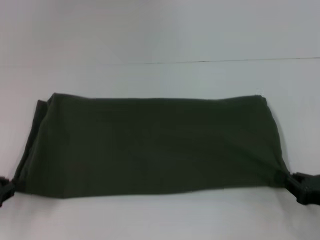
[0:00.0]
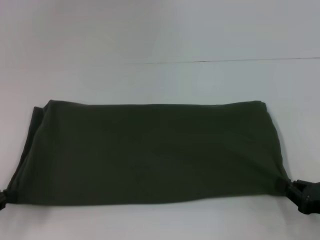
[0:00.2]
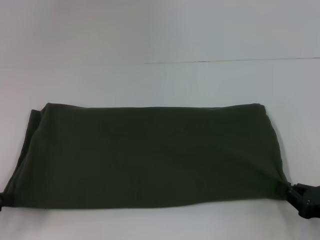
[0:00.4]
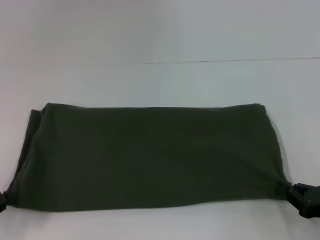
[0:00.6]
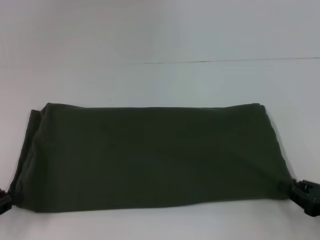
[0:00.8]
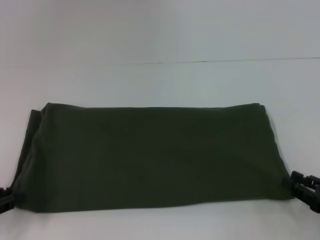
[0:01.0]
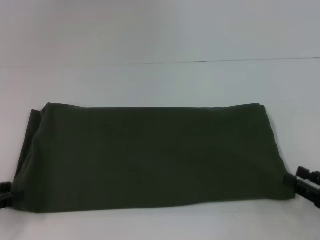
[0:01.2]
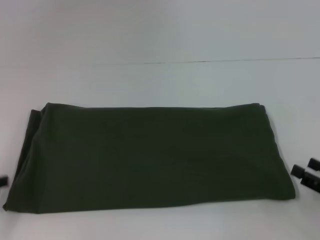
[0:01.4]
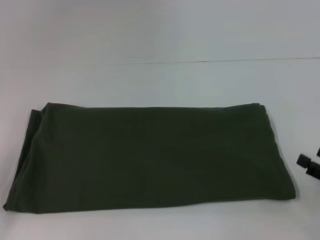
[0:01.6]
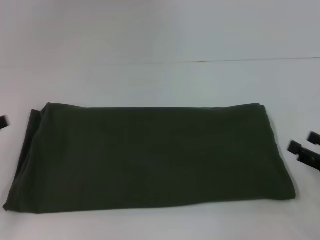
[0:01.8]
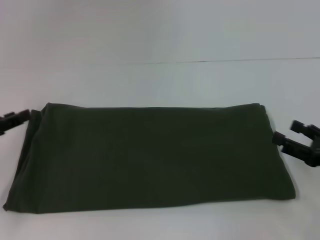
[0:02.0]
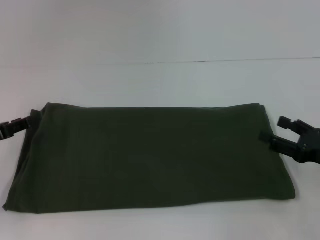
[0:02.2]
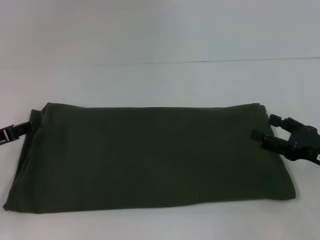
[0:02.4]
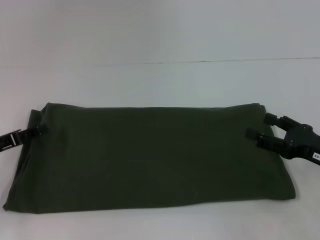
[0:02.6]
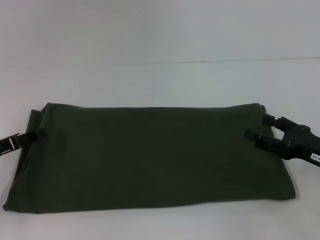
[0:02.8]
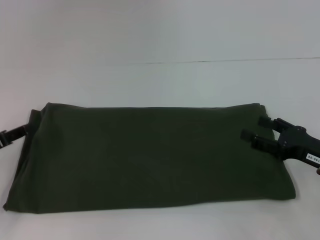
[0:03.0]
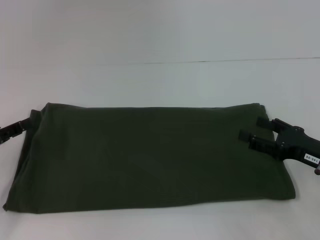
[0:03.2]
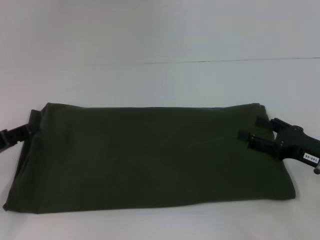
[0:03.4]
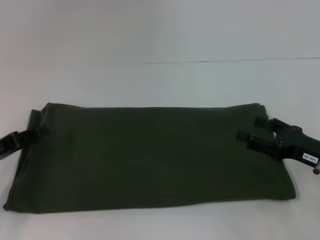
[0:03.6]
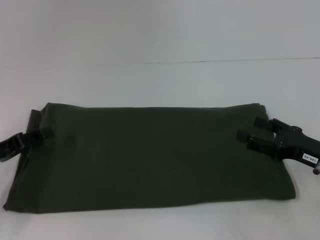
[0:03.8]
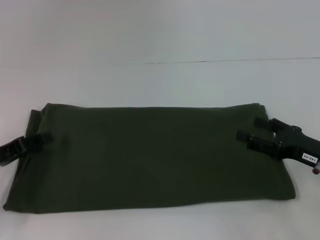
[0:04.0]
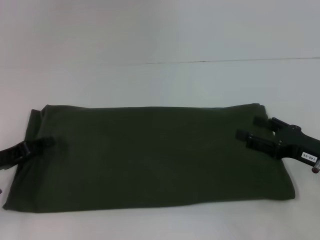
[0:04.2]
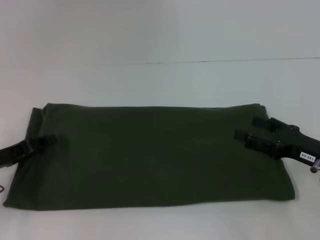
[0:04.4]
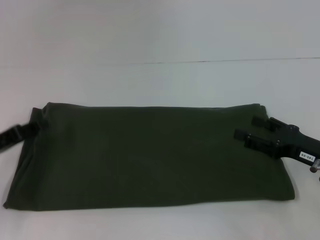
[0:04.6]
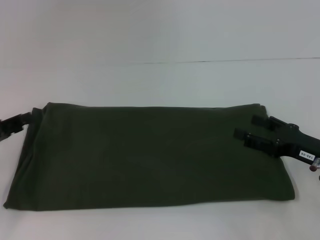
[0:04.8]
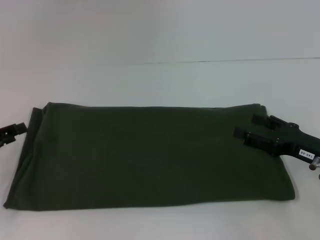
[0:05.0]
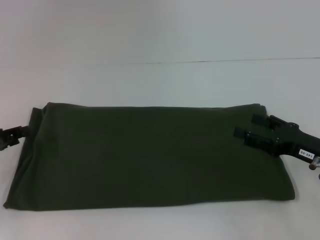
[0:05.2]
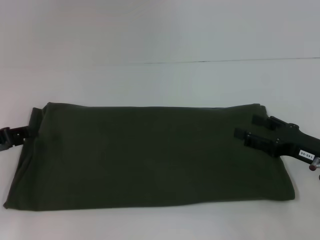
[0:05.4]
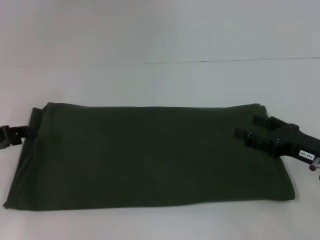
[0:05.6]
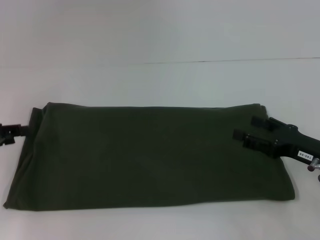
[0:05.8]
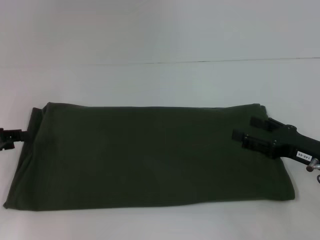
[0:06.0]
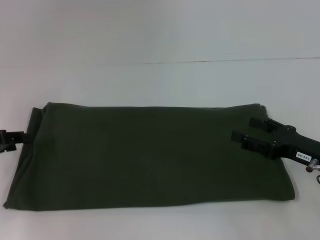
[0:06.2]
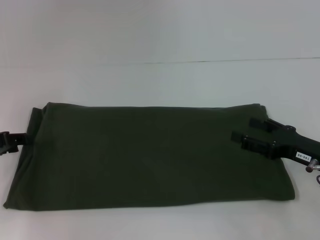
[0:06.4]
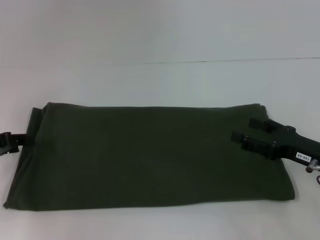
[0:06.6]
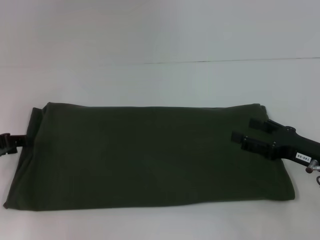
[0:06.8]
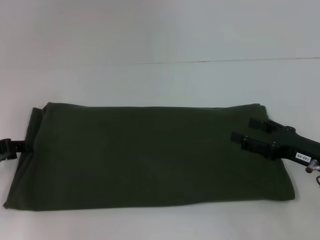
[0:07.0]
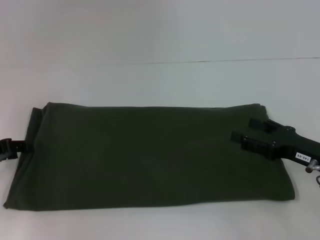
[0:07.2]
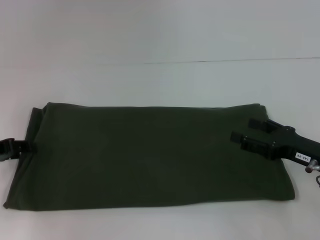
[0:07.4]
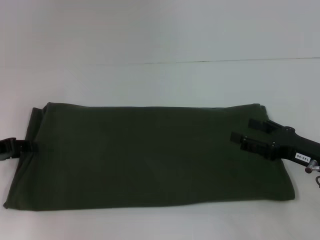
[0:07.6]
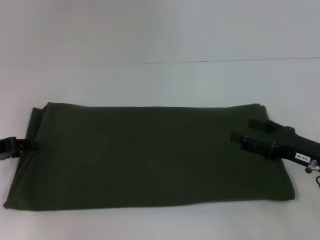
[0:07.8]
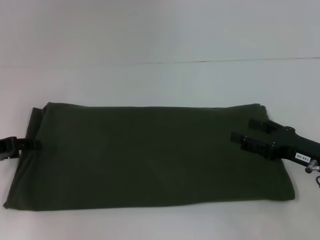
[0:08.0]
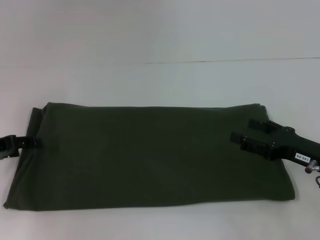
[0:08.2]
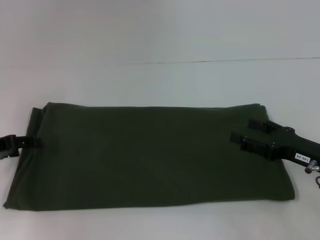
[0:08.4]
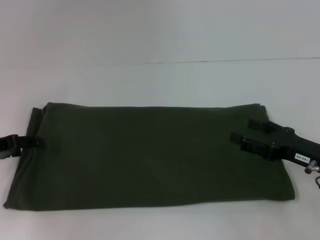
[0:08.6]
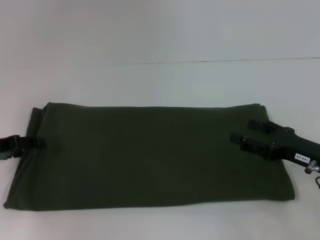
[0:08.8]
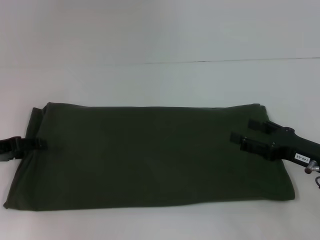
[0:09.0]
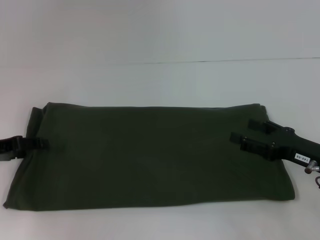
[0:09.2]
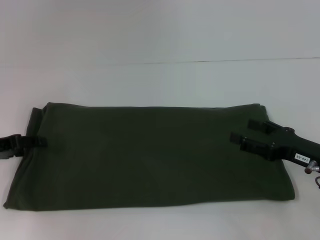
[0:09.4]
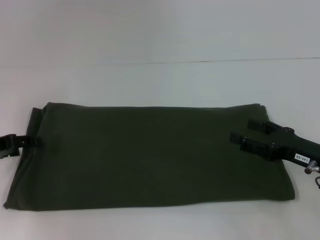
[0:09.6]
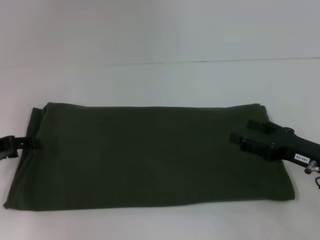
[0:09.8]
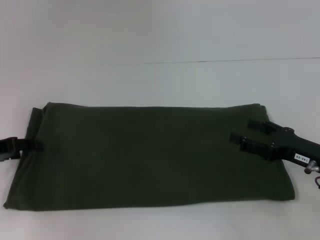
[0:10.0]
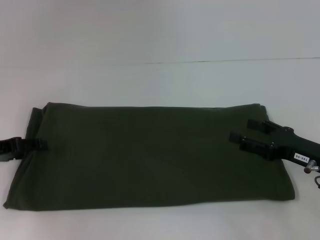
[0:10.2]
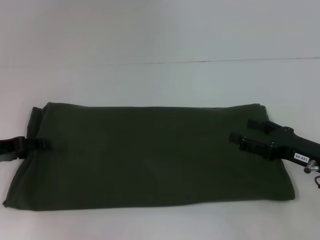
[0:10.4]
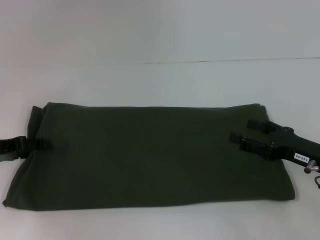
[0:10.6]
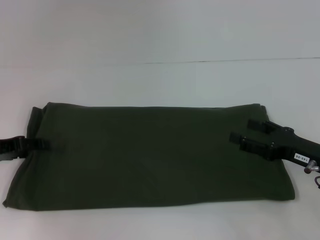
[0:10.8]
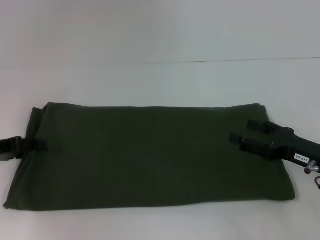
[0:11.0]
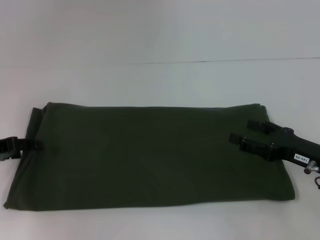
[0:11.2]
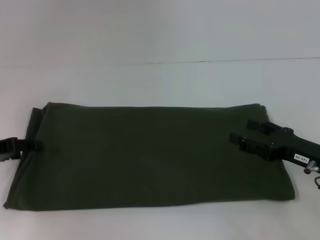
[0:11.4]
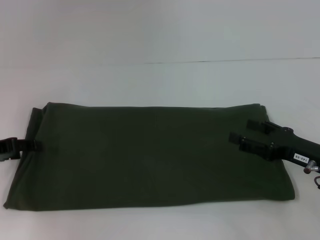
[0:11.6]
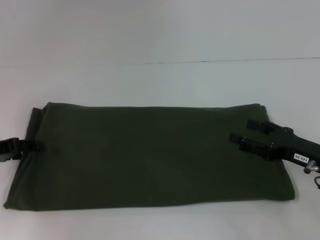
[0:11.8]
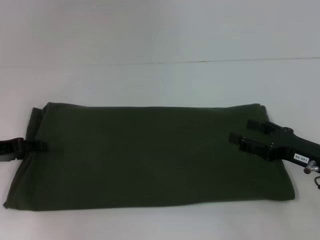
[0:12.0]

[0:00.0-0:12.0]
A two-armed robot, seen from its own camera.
0:00.0 to 0:01.6: The left gripper opens up. The right gripper opens up.
0:01.6 to 0:03.0: The right gripper heads forward and to the left, covering approximately 10 cm.
0:03.0 to 0:04.4: The grippers move only a little.
0:04.4 to 0:06.0: The left gripper heads upward, covering some 5 cm.
0:06.0 to 0:07.6: The grippers make only small movements.
0:07.6 to 0:12.0: Both grippers stay put.

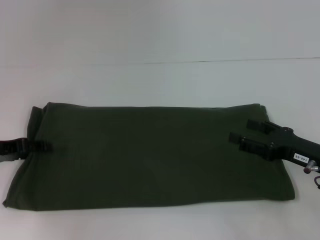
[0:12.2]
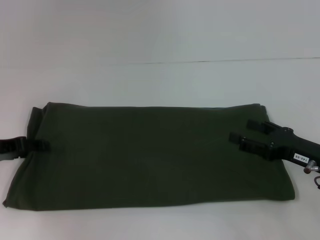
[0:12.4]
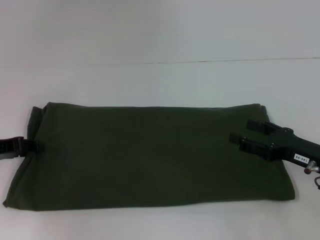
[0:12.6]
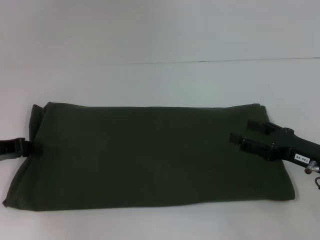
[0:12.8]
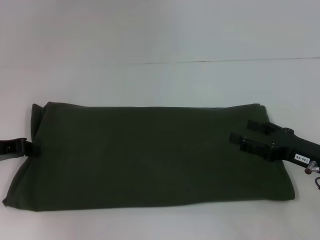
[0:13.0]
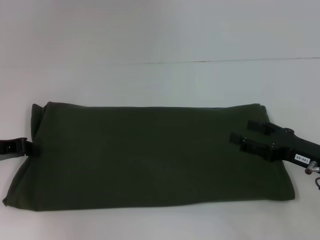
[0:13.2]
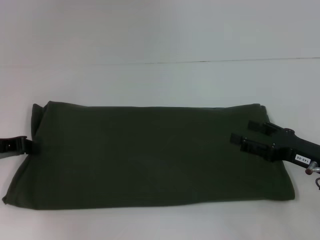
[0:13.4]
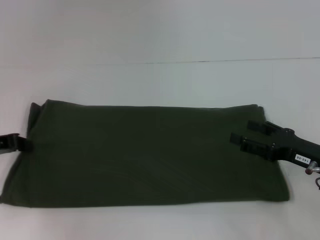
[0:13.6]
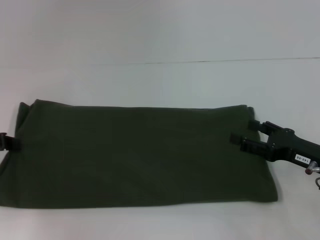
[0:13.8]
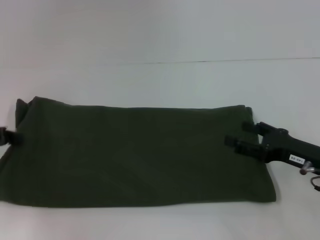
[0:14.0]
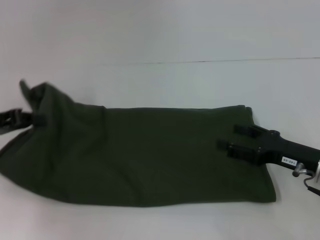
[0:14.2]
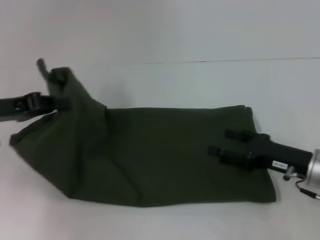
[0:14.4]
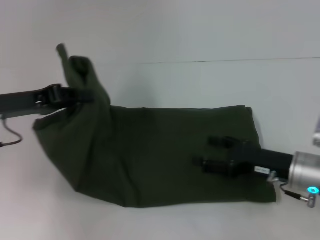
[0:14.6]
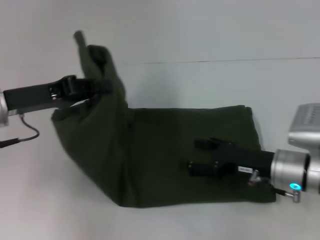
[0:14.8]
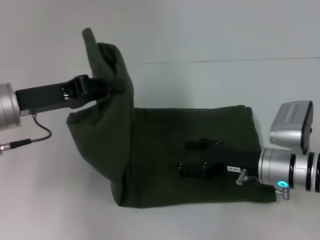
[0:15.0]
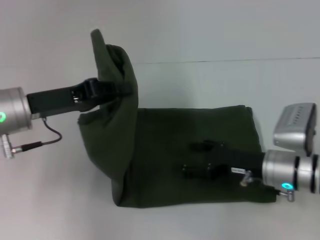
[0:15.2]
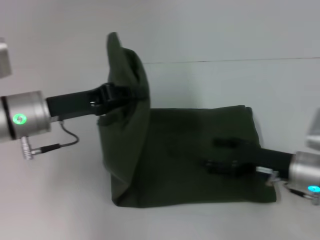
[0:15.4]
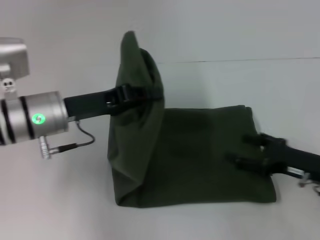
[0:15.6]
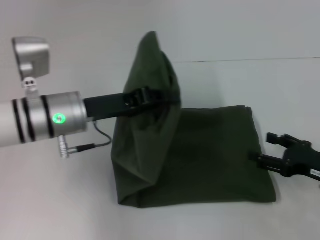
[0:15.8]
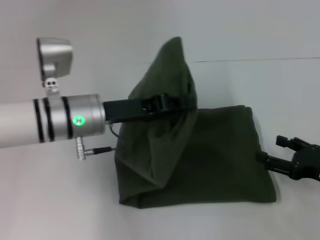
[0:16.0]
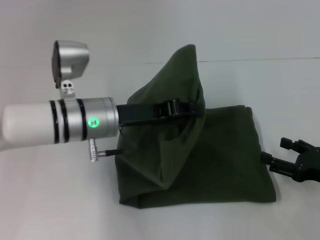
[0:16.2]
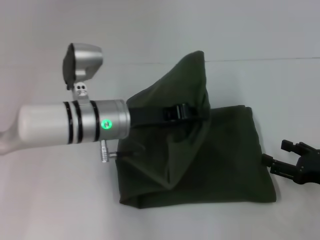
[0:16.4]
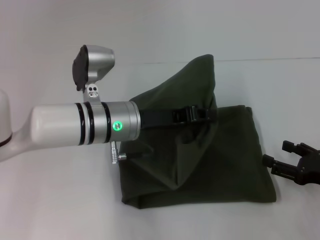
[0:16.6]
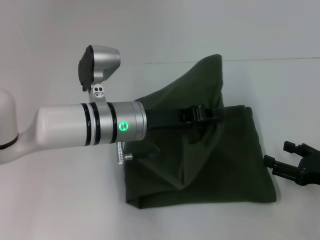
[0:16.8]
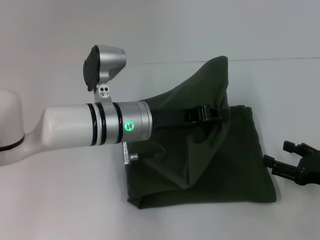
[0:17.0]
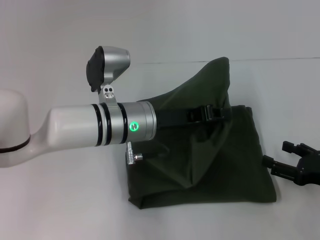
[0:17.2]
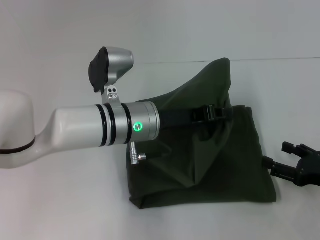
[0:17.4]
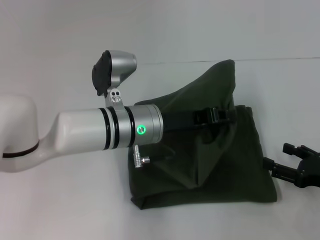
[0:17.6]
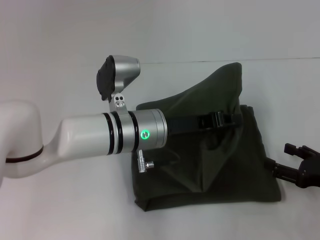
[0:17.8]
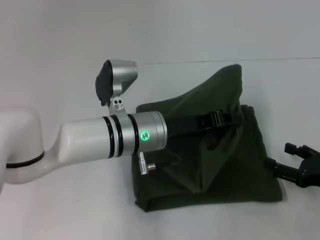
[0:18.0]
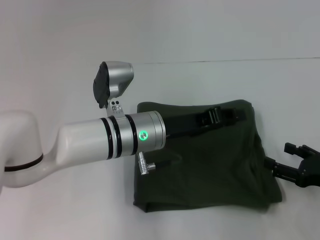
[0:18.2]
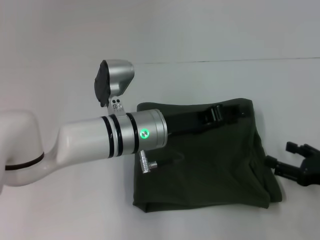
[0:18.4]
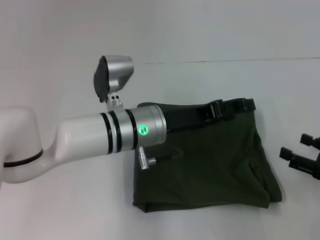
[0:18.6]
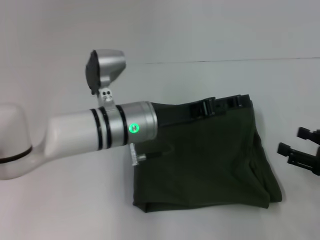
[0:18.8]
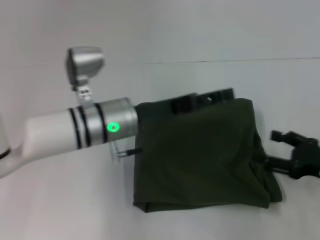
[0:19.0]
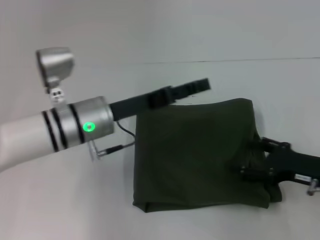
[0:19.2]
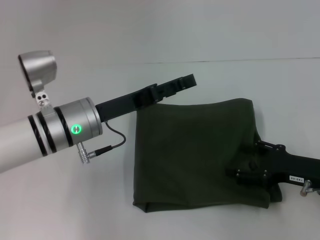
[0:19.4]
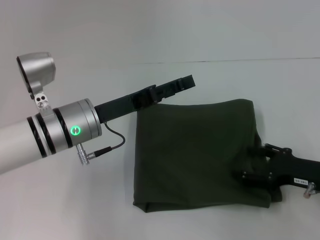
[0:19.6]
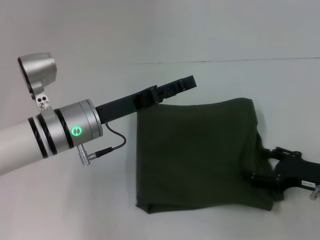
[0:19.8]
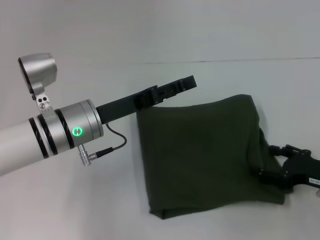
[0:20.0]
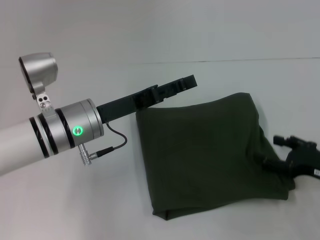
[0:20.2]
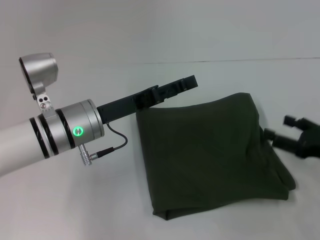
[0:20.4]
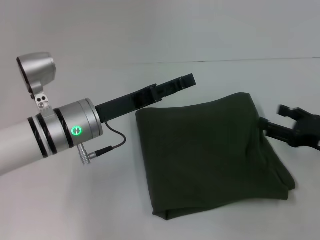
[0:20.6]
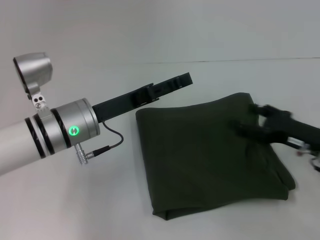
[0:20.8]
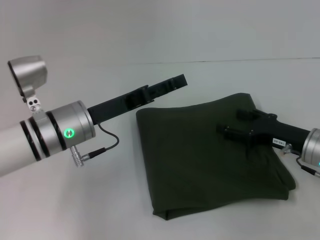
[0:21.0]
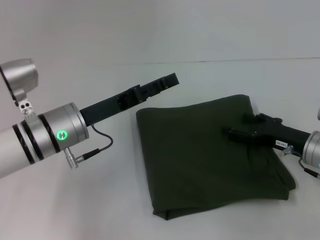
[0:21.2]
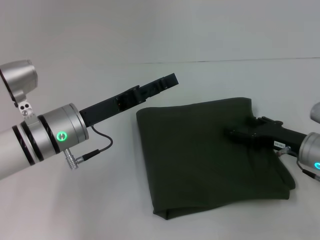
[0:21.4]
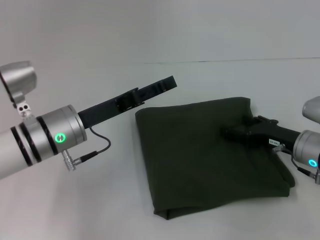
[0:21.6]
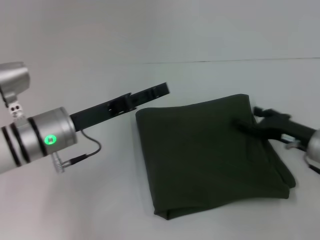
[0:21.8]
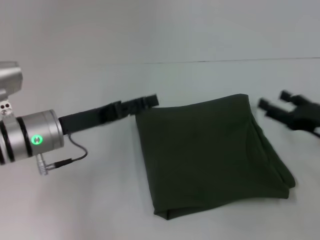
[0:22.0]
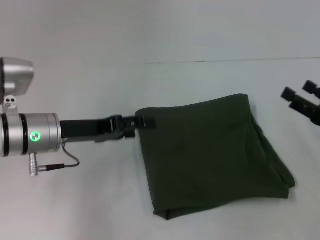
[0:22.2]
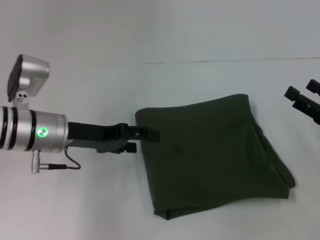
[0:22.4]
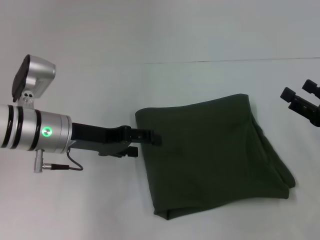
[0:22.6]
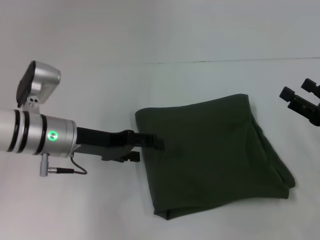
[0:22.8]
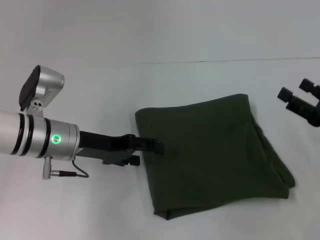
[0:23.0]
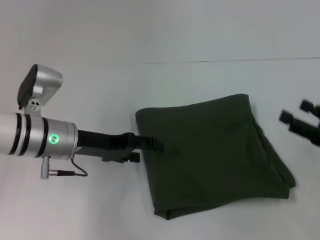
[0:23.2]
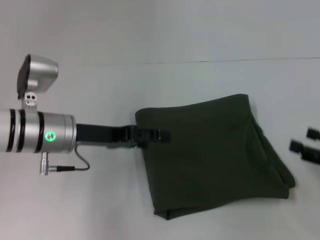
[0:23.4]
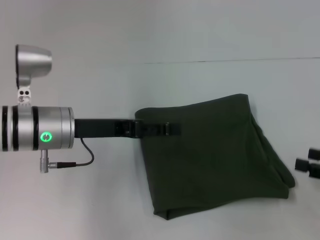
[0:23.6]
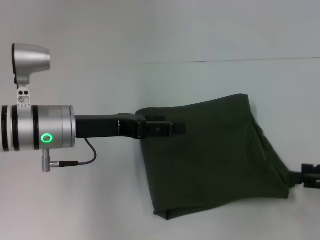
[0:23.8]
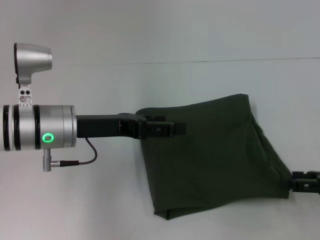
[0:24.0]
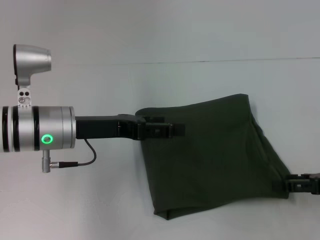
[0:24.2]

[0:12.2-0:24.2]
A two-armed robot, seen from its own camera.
Step, 0:12.2 to 0:18.4: Fold the clothes with your left hand.
0:12.2 to 0:13.8: The left gripper closes.
0:13.8 to 0:15.2: The right gripper shifts some 10 cm to the left; the left gripper goes about 15 cm to the right.
0:15.2 to 0:16.6: The right gripper shifts some 15 cm to the right and backward; the left gripper is displaced to the right by roughly 15 cm.
0:18.2 to 0:19.8: The left gripper is displaced to the left by about 10 cm, and opens.
0:19.8 to 0:21.2: The right gripper moves forward, approximately 5 cm.
0:21.2 to 0:22.6: The right gripper is displaced to the right by some 5 cm.
